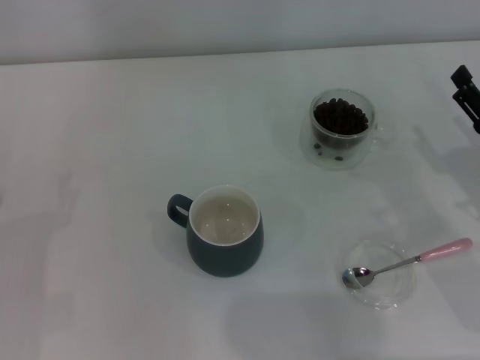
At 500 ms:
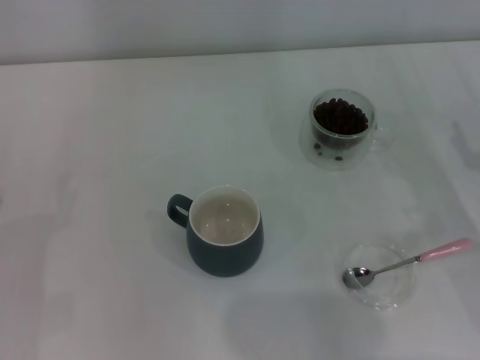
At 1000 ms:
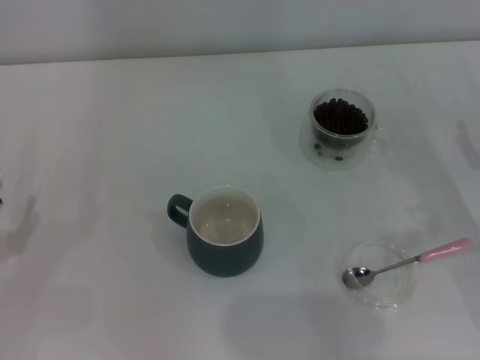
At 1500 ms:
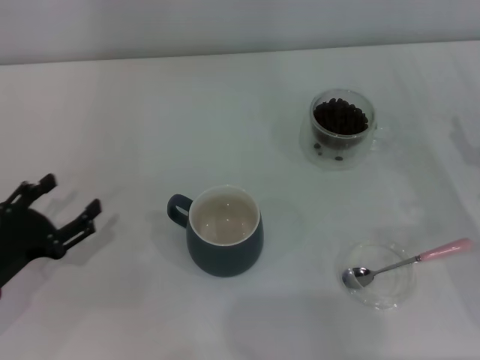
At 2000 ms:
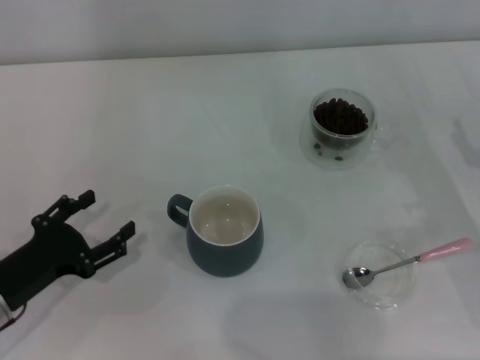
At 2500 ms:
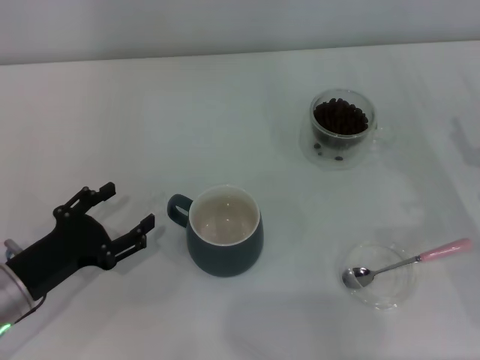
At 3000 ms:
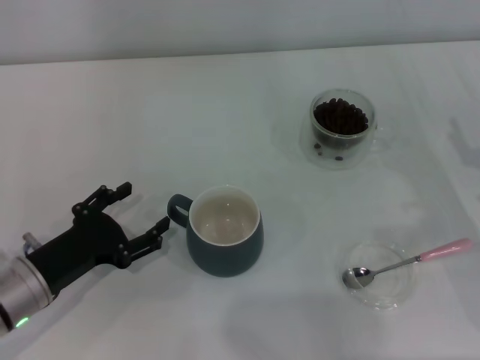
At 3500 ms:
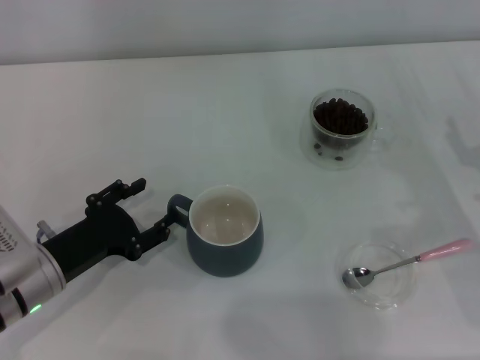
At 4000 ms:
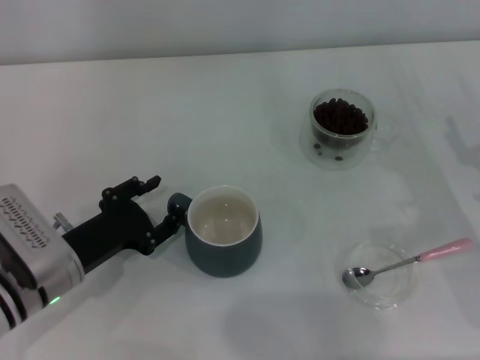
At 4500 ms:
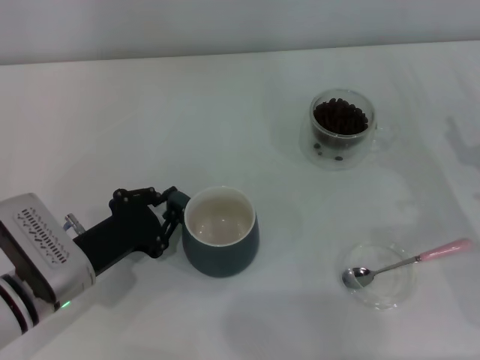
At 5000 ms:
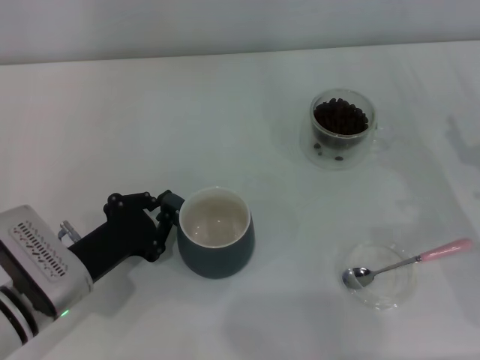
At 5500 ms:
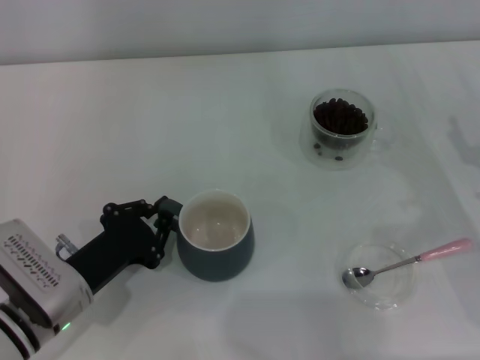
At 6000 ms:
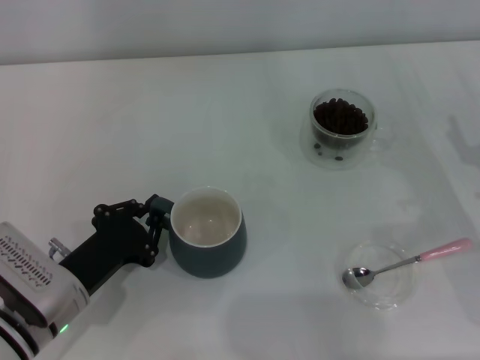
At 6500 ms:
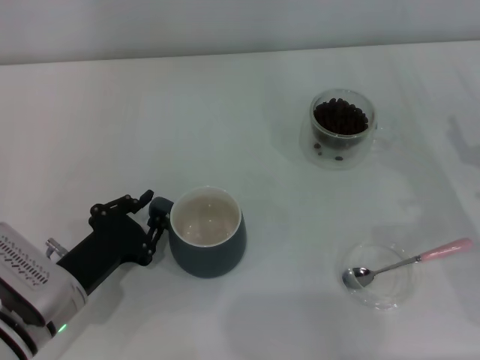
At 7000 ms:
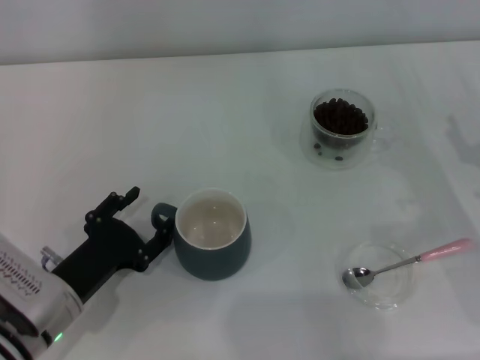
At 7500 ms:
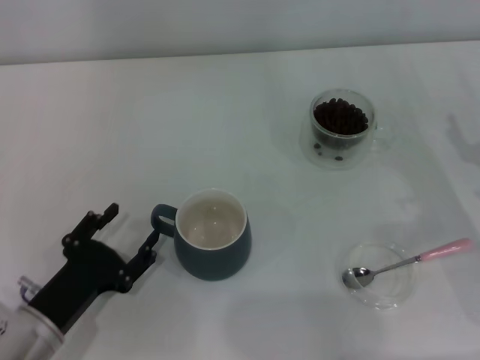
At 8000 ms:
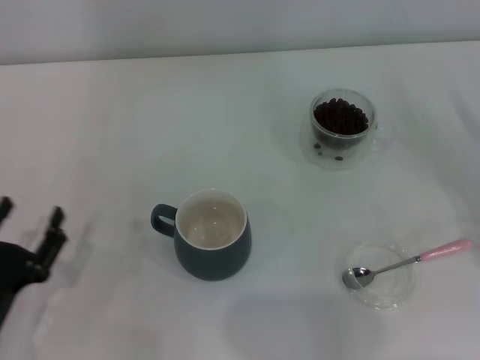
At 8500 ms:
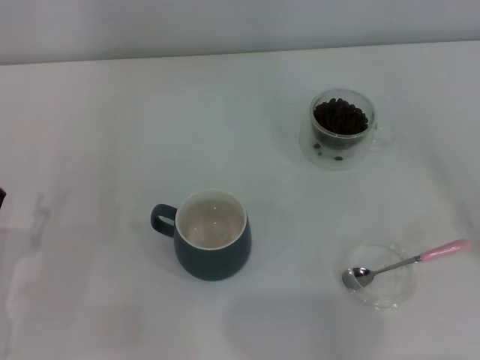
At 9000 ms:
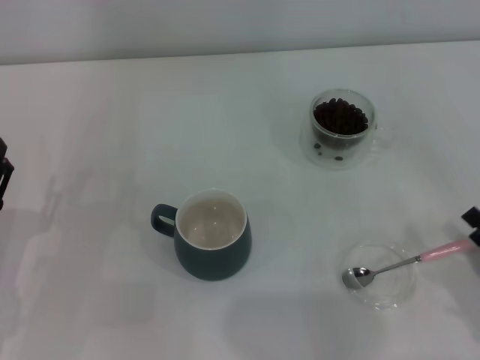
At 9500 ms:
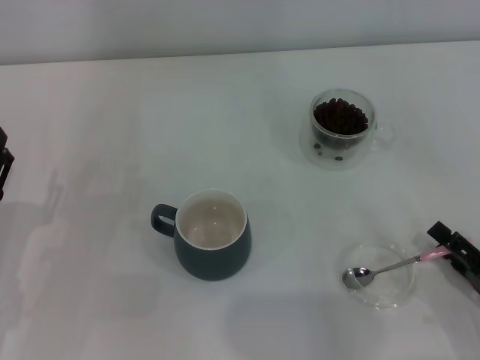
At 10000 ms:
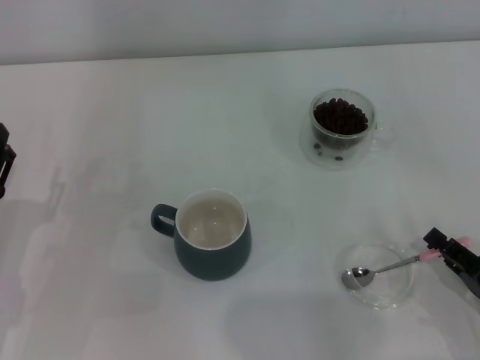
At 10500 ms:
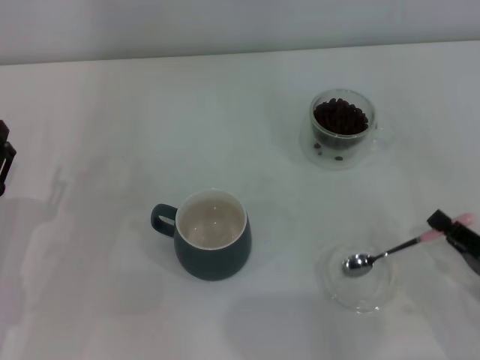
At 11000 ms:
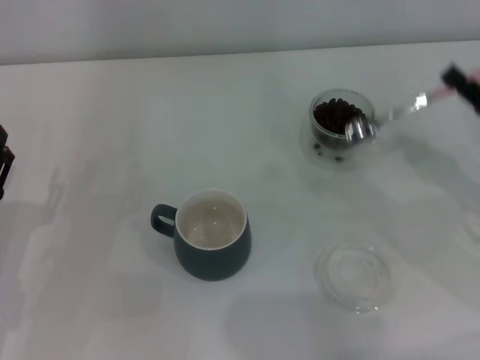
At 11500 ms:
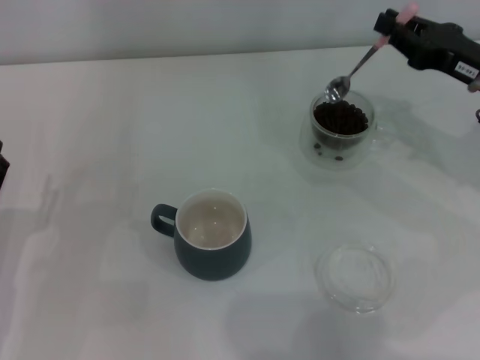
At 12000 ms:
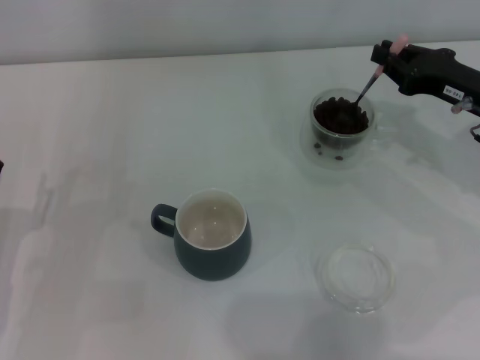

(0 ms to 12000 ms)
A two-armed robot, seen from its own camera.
Task of the whole recording: Use a pink spoon to take out the coffee beans from the glass and pour them into the gray cup.
Step, 0 ms - 7500 ms: Move the cup to the center of view with the left gripper.
Step, 8000 ms - 10500 ms: Pick up the spoon with the right gripper.
0 ms - 2000 ms: The left gripper shifts by roughly 5 cm.
2000 ms - 4000 ms: The left gripper moves to the right, some 5 cm.
4000 ms - 6000 ms: The left gripper closes up.
6000 ms - 8000 ms: The right gripper ends up roughly 5 cm from where it was. The left gripper goes some 10 cm backward and to the left, and opens up.
8000 ms - 10000 ms: The right gripper heads backward and to the left, covering about 10 cm, while the left gripper shifts some 5 cm forward.
10000 ms - 12000 ms: The right gripper shifts some 25 cm forward and upward, and closes its fingers.

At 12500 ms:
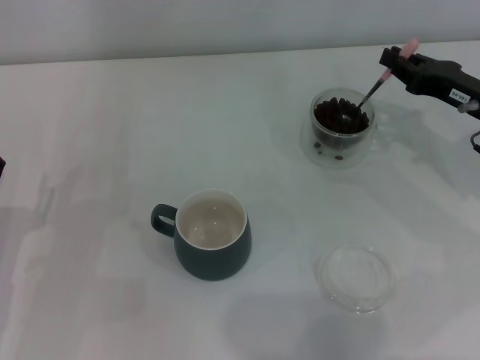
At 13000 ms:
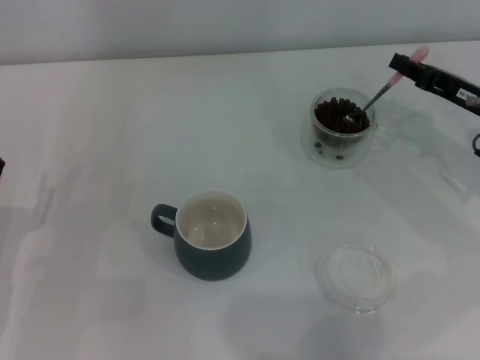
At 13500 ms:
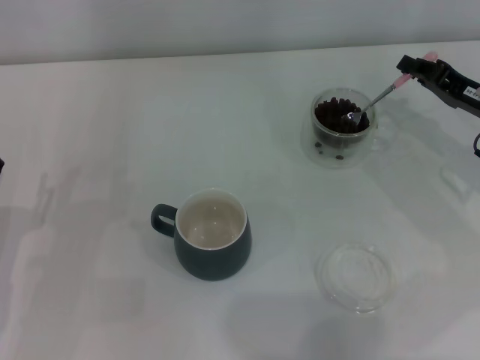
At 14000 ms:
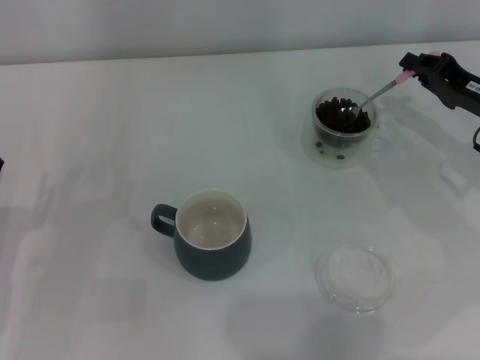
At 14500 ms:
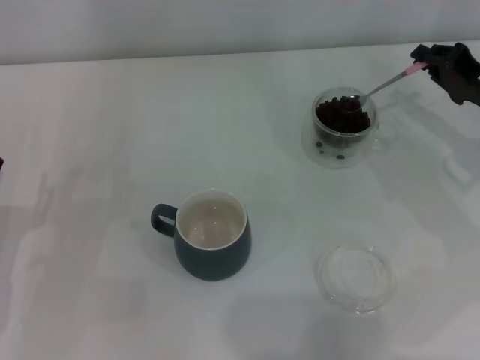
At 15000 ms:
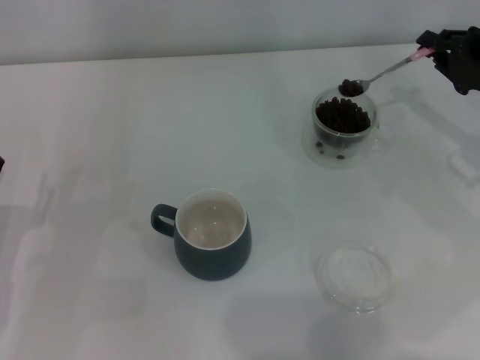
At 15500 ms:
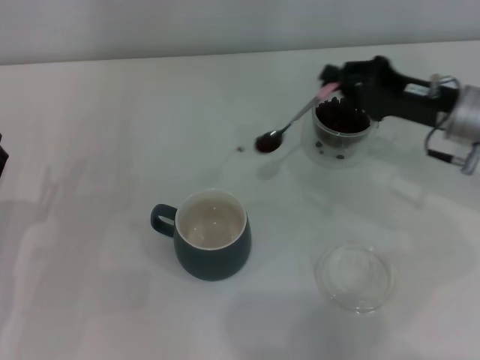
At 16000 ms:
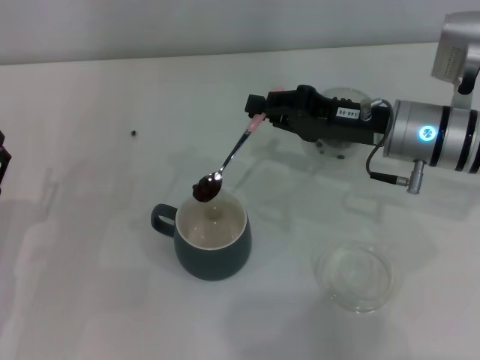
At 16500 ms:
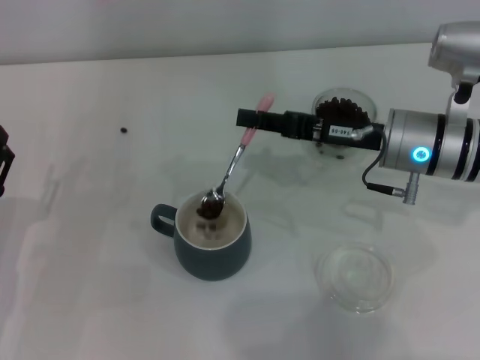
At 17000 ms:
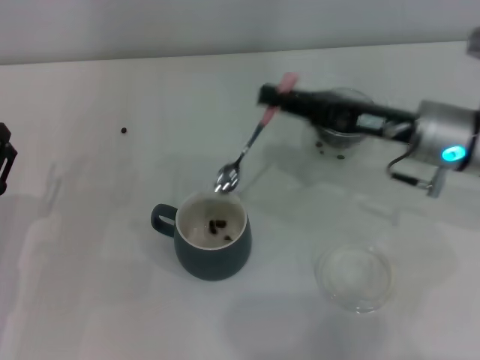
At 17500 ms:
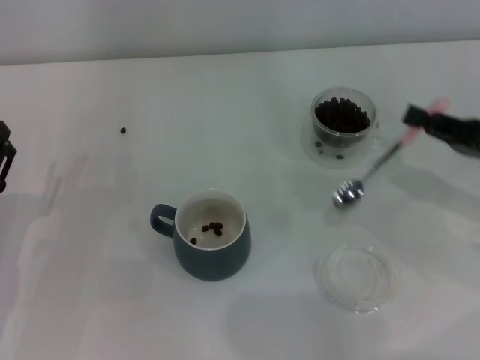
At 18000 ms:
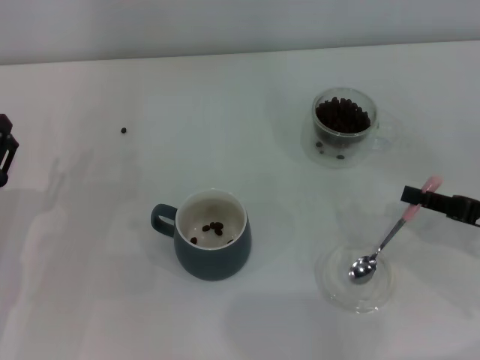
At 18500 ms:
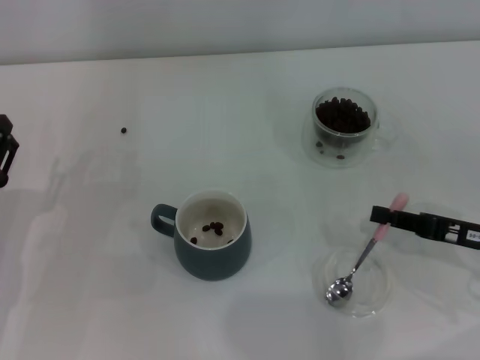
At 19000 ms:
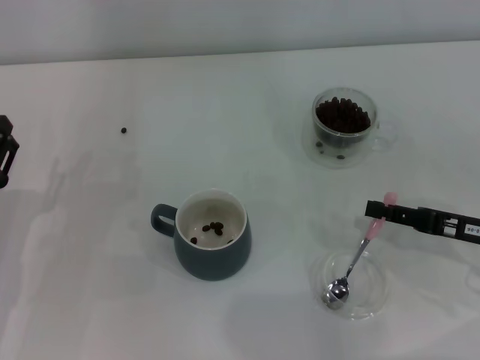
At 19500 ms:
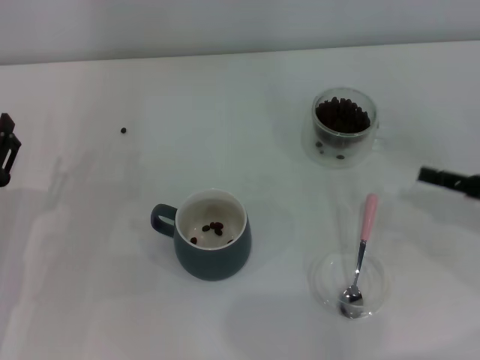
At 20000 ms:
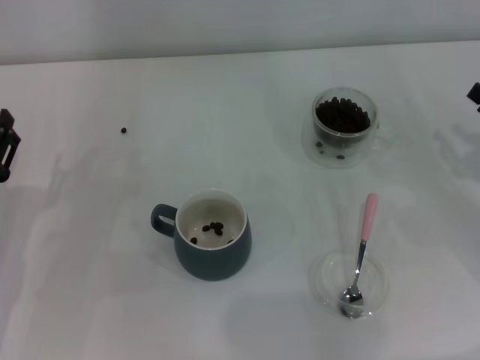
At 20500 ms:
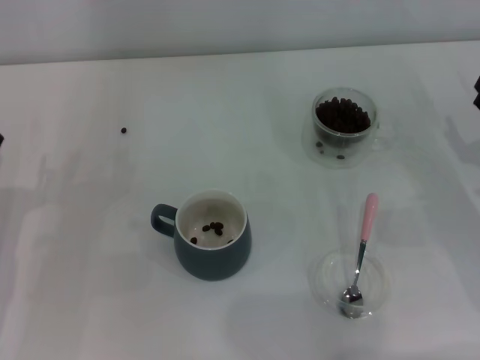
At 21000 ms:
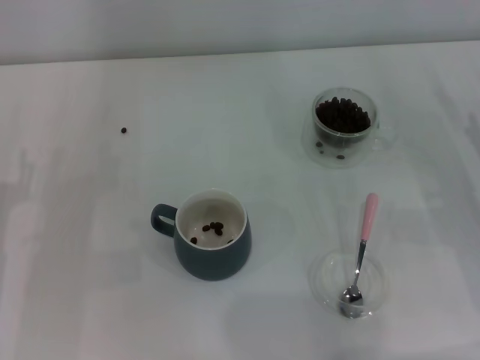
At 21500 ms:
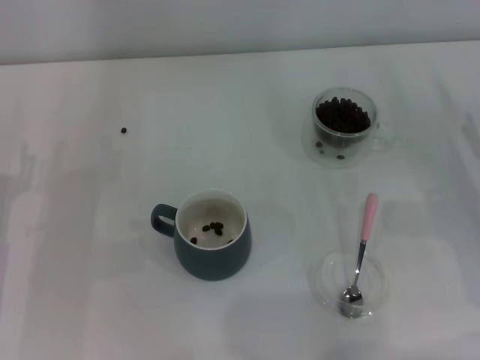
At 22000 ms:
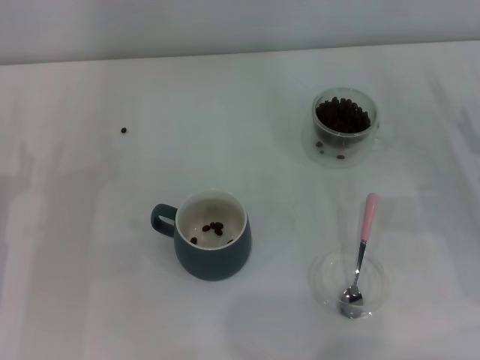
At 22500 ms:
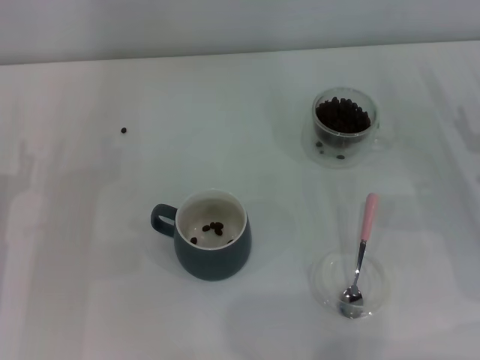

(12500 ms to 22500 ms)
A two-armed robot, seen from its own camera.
Task of the whole recording: Use a pink spoon to take out the coffee beans from the glass and pour them into the gray cup.
Step, 12500 ms - 16500 ms: Scoop a spoonful of beans into the cup with the right gripper.
Step, 17500 ms - 19000 ms: Place the spoon back in its original place with the right gripper.
14500 ms - 16500 ms: The right gripper goes roughly 15 cm to the left.
16500 ms - 18500 ms: The right gripper is displaced to the right, backward and downward by roughly 15 cm.
18500 ms - 20500 ms: The right gripper opens.

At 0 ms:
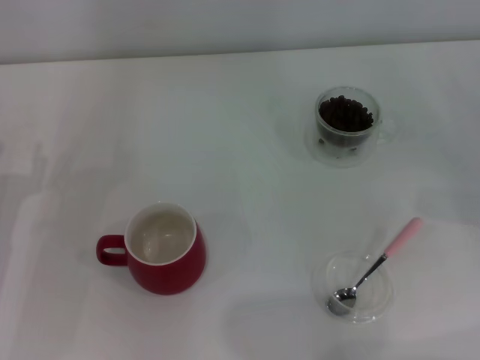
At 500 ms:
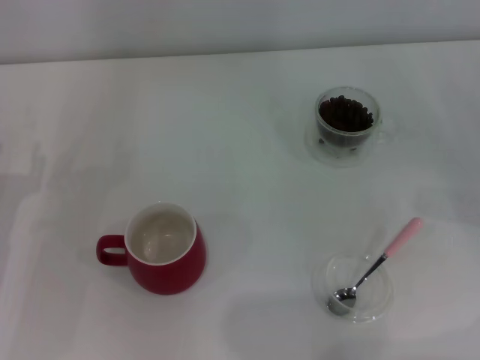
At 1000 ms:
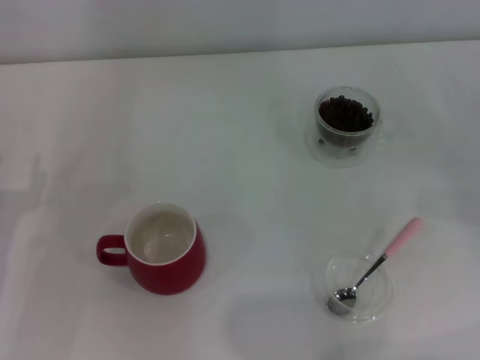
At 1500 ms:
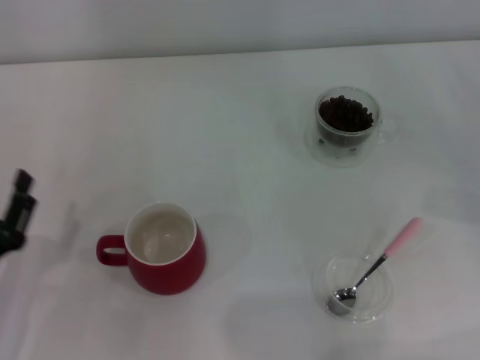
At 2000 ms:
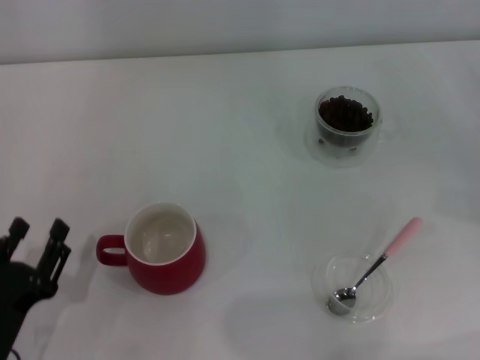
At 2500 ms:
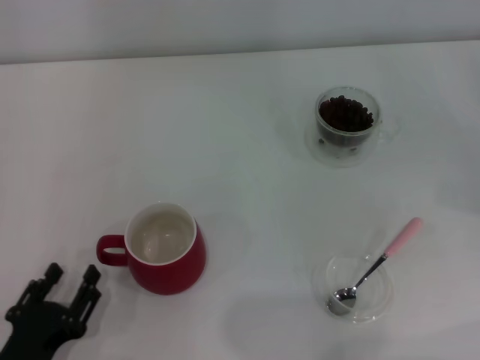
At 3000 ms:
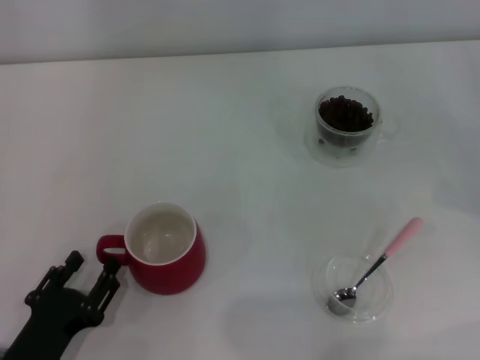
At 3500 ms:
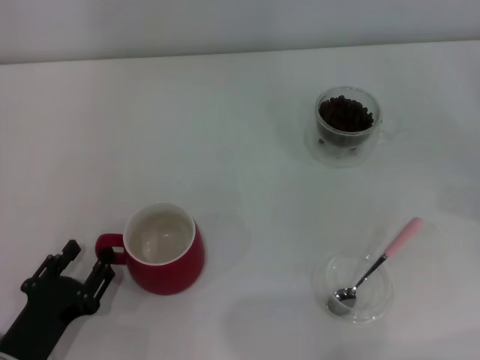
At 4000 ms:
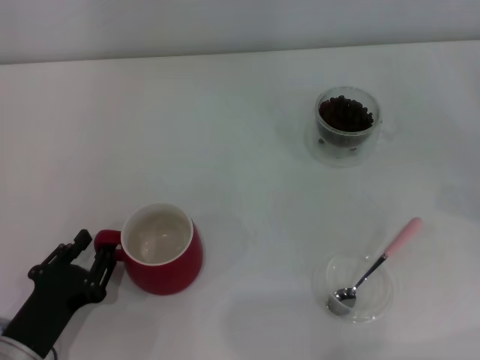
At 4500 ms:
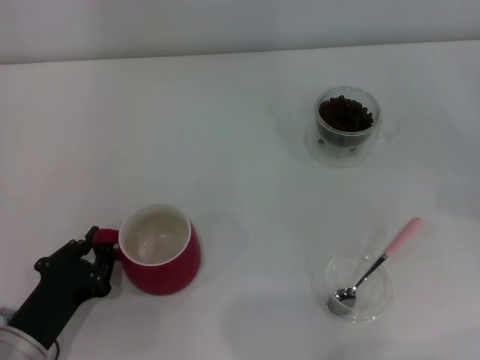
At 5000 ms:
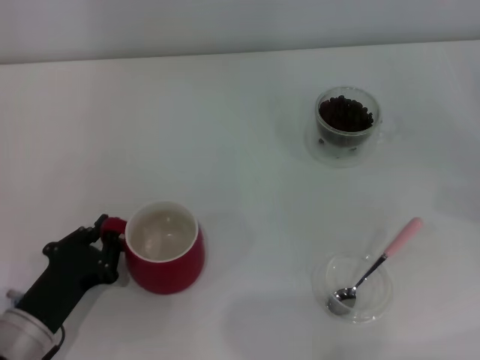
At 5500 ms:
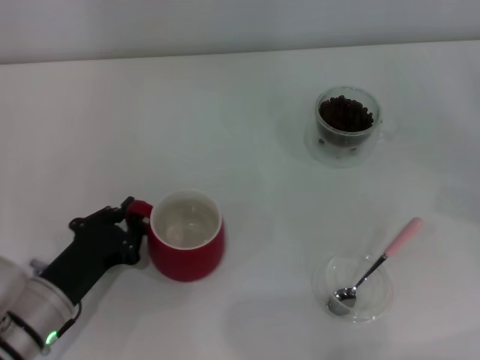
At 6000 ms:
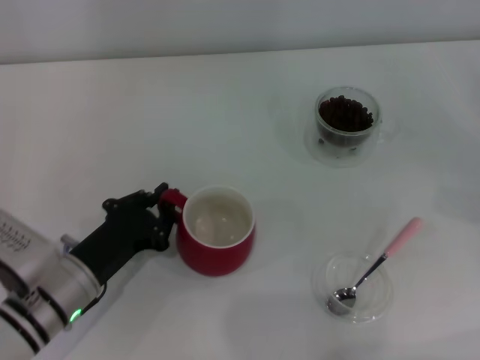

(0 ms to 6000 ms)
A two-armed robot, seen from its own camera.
Task of the whole recording: Use a pink spoon to take out the coffee beans from the glass and pour them into the red cup.
0 ms - 2000 ms: The left gripper heads backward, covering some 10 cm.
2000 ms - 4000 ms: The grippers stay close to where they were, moving slightly.
4000 ms - 6000 ms: The left gripper shifts some 10 cm forward, and closes its fingers.
